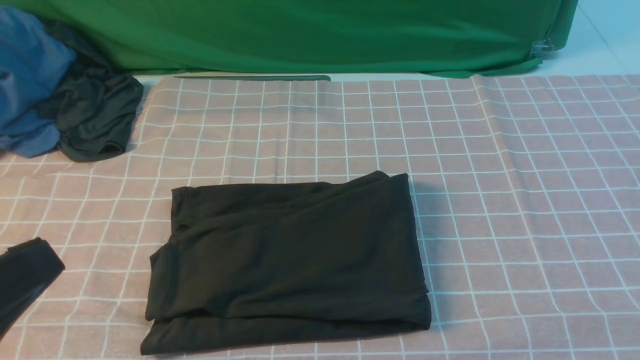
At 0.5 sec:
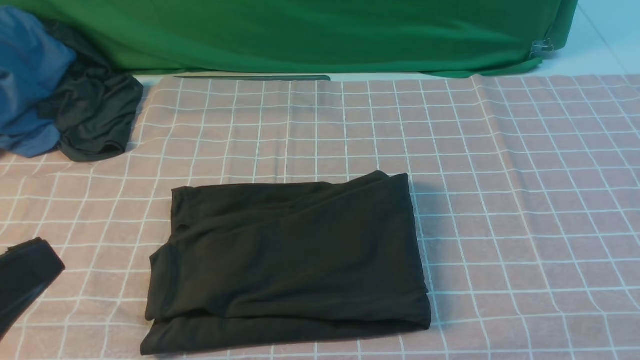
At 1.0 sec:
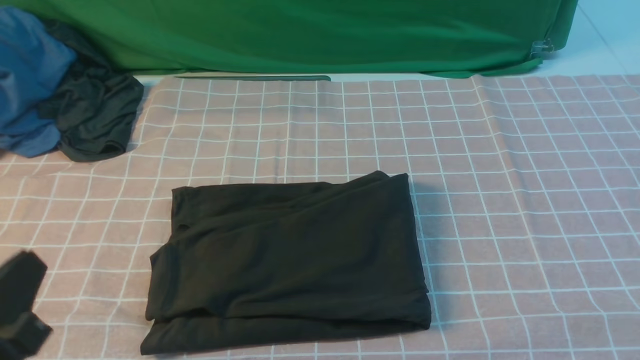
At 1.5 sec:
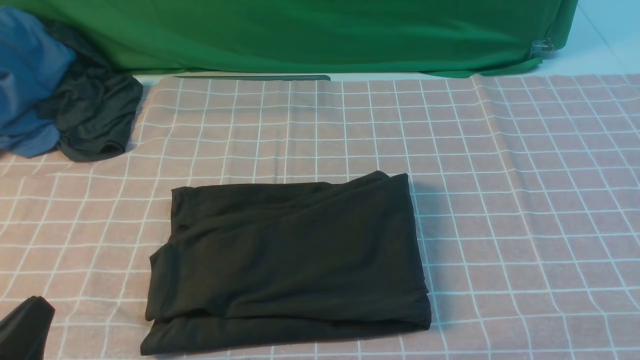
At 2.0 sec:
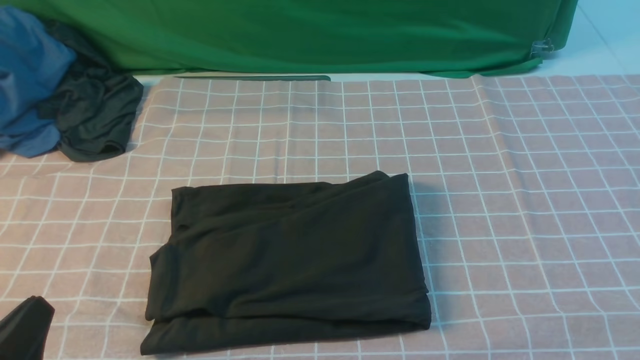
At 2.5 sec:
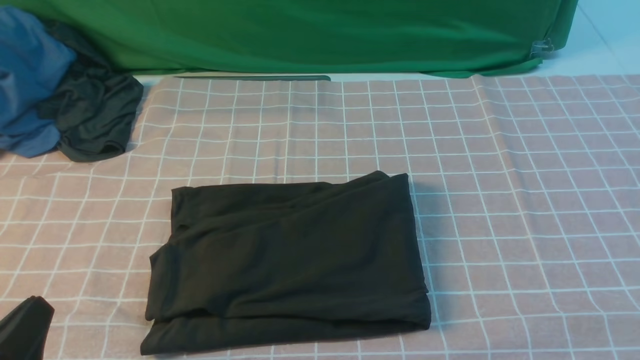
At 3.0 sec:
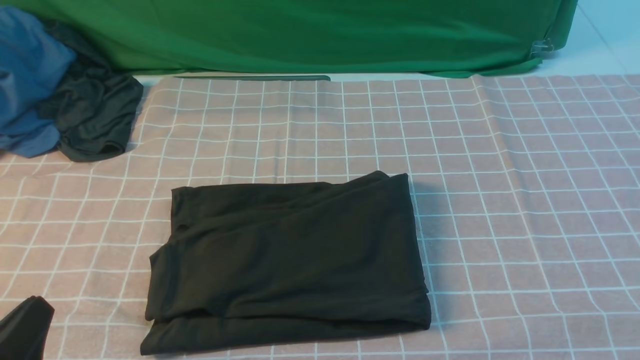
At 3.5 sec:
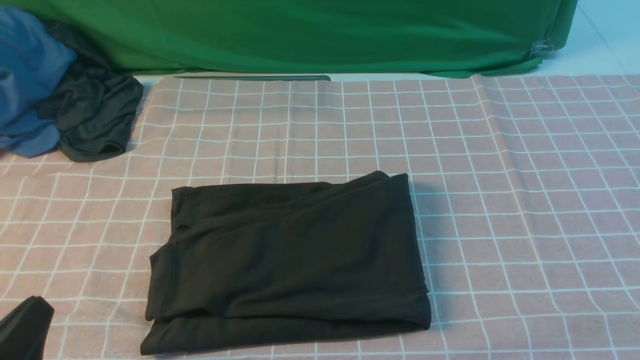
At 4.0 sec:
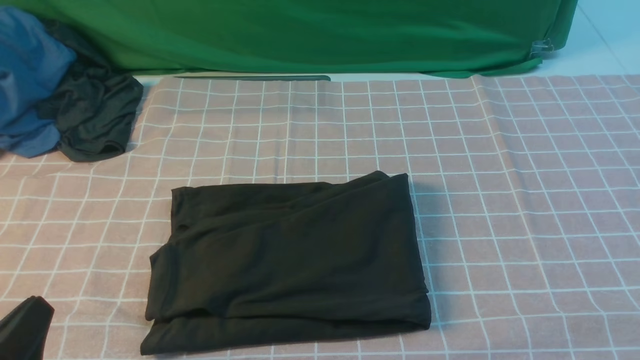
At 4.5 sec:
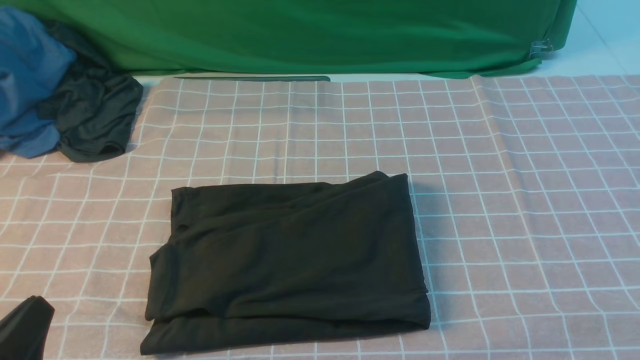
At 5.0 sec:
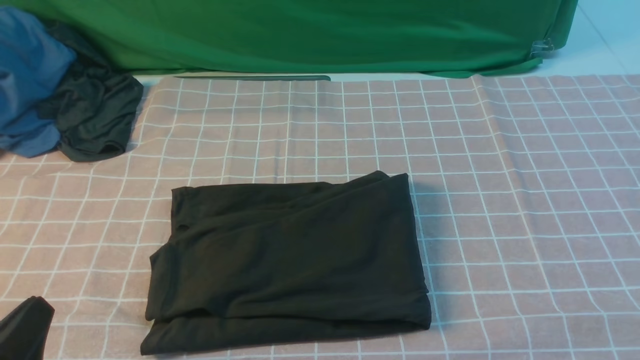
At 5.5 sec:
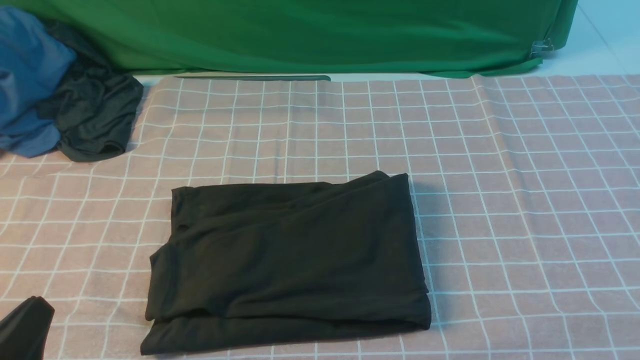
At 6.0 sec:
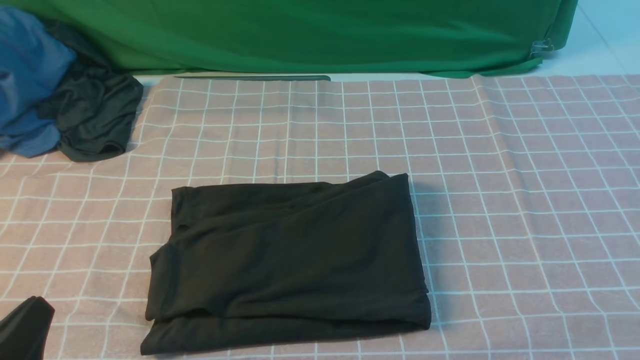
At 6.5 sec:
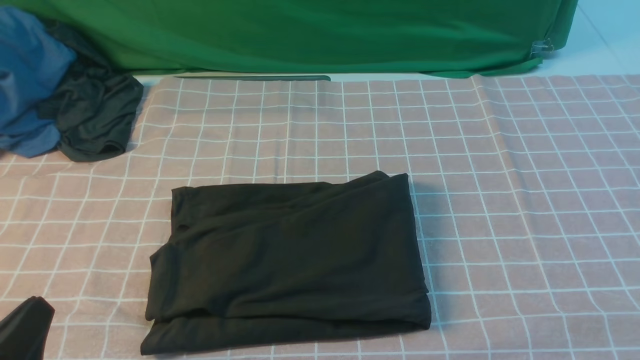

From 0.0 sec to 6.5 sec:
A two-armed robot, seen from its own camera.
From 0.0 sec to 2.0 sec: The left gripper heads downward, covering about 15 cm.
From 4.5 sec to 6.5 sec: Neither gripper changes place.

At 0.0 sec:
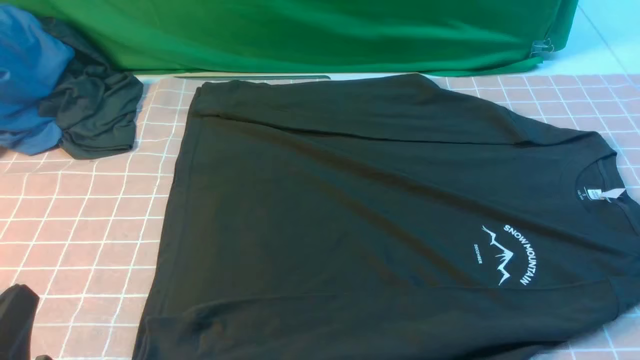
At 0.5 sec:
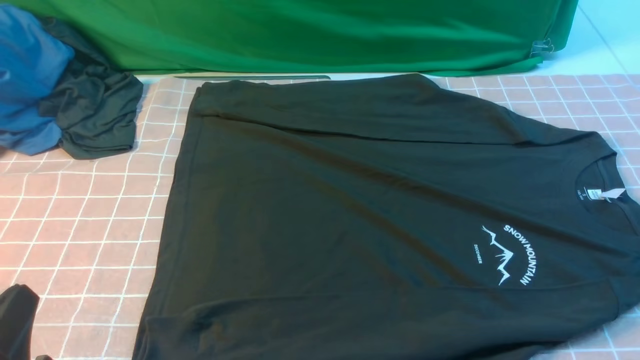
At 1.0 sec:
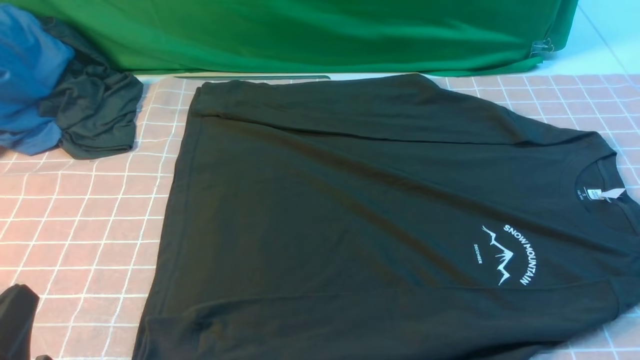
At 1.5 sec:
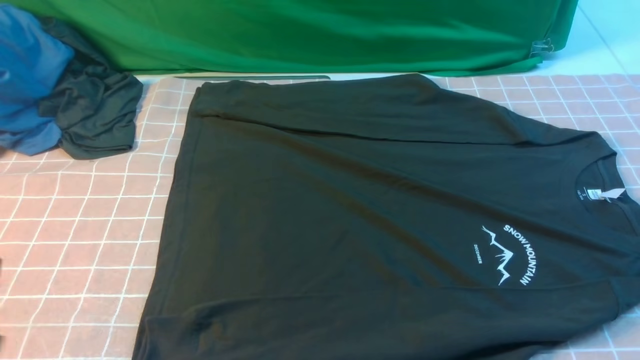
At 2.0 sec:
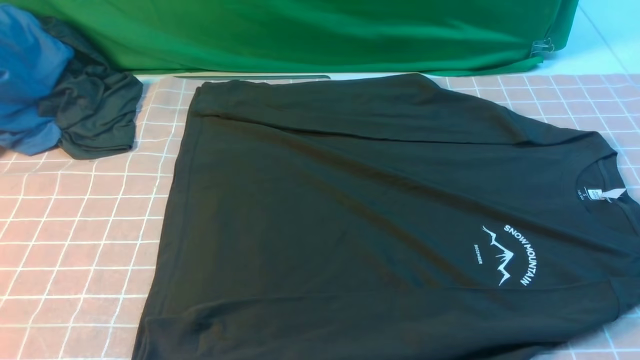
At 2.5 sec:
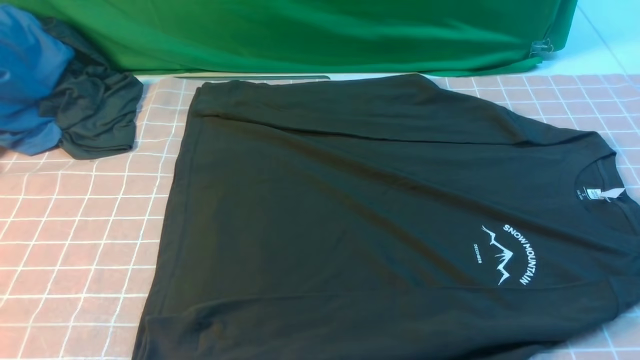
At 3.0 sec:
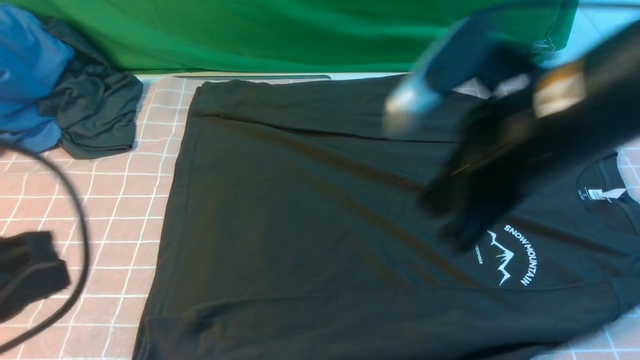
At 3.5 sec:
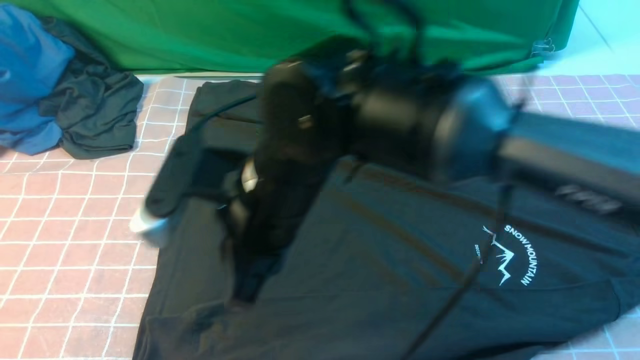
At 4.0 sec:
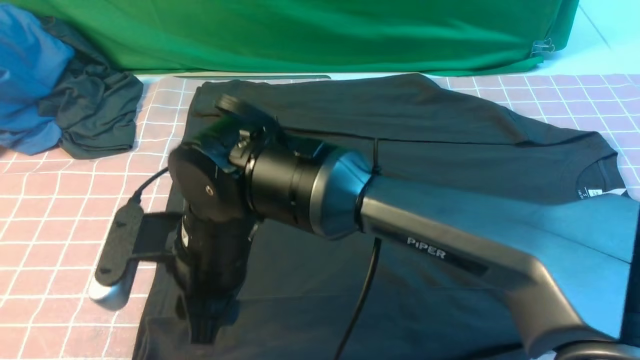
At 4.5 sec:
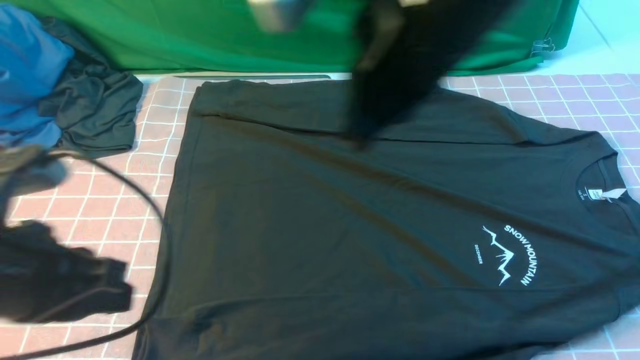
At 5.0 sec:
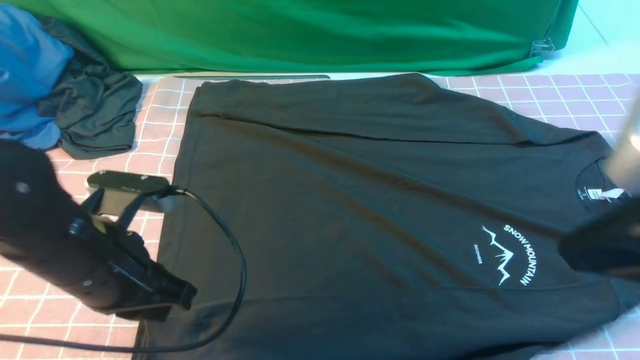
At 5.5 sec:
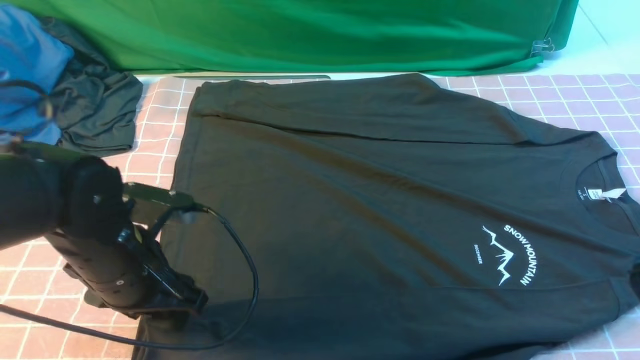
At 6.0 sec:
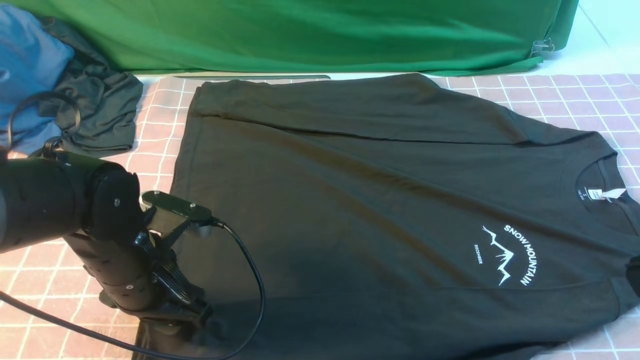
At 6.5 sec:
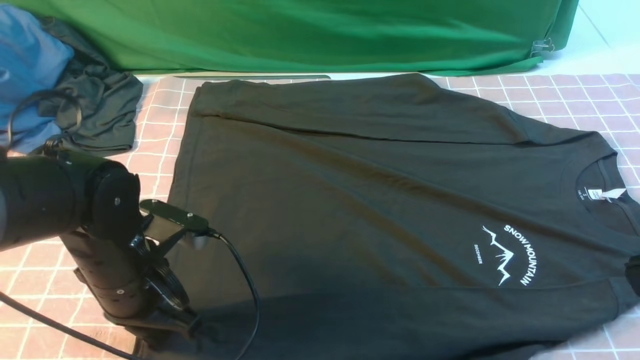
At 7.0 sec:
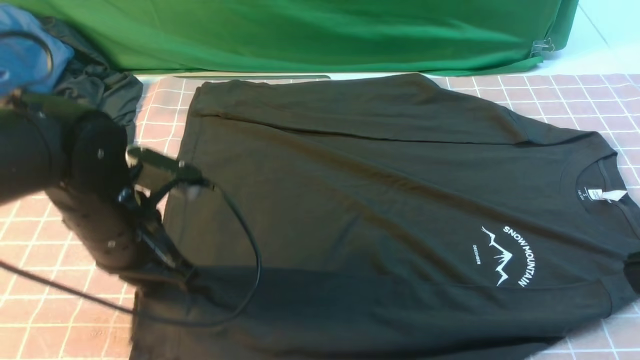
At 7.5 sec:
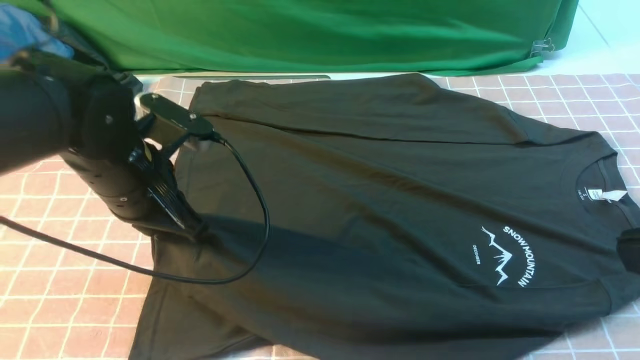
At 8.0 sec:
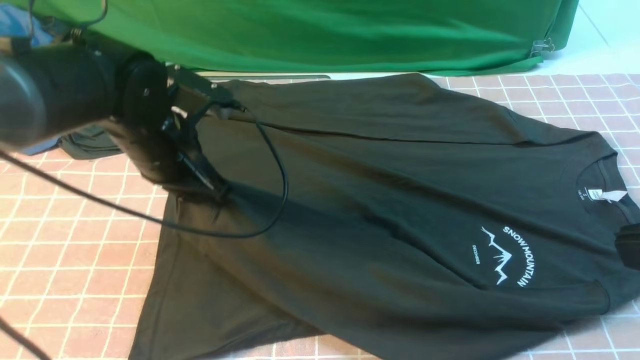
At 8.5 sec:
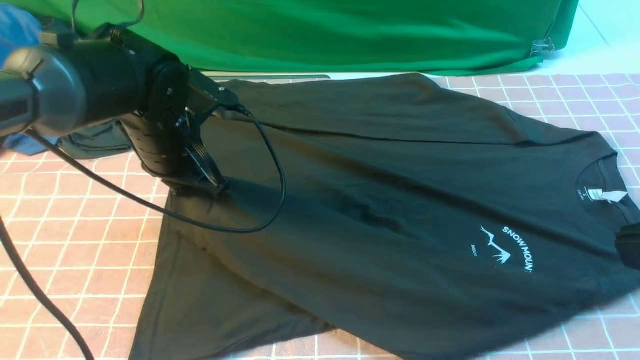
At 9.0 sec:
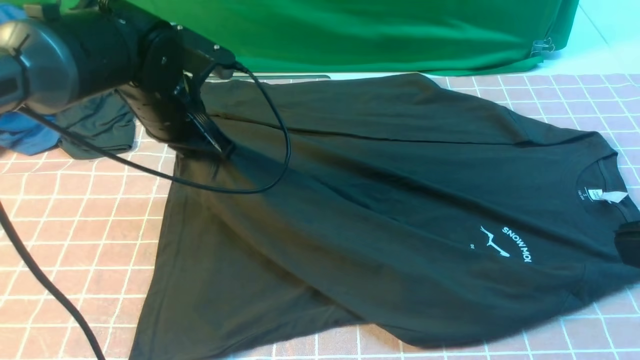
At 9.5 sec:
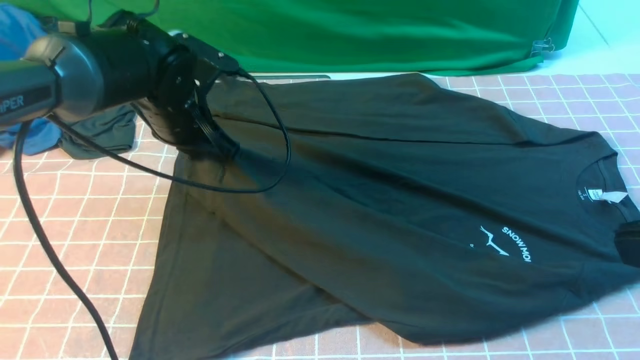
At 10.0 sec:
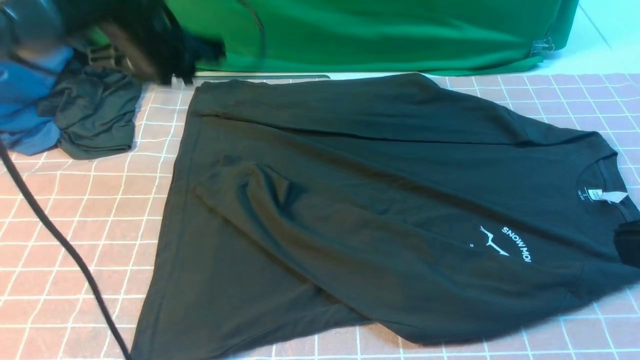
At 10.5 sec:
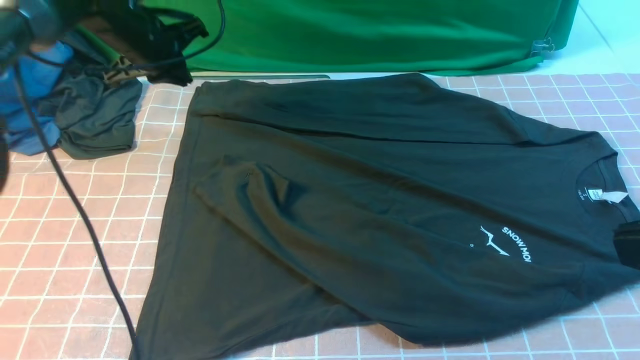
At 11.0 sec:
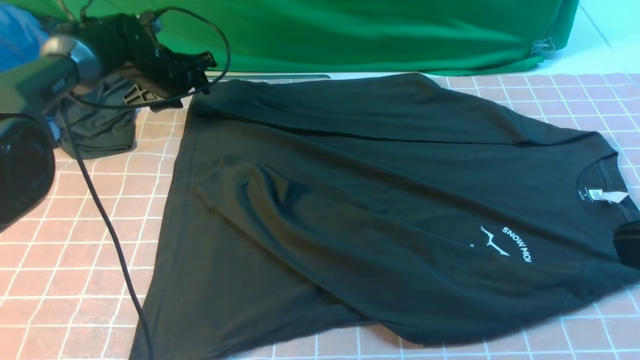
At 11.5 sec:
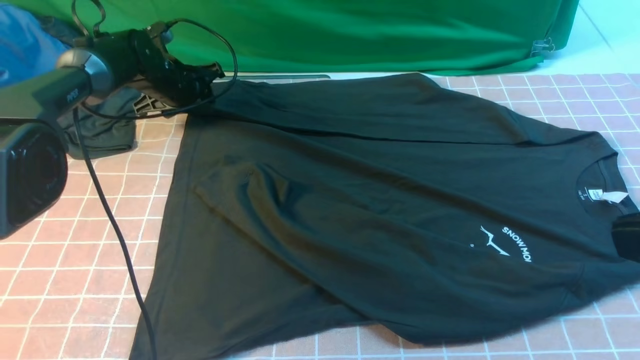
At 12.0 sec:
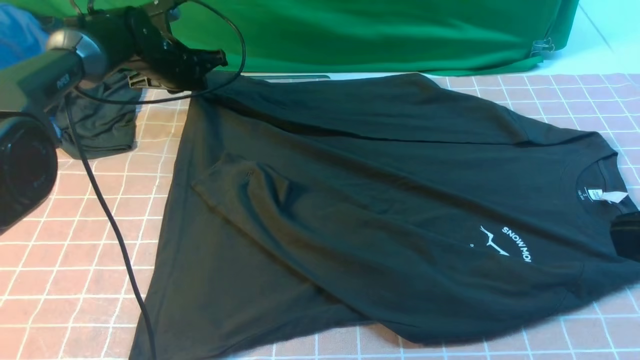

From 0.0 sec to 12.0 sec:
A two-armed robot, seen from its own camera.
Step, from 0.0 sec to 6.0 sec: use the left arm to clamp the cuff closest to it.
Step, from 6.5 sec to 9.5 sec: use the left arm to drag and place the cuff at the centered position on the left edge of the fabric.
From 0.0 sec to 2.0 sec: The left gripper heads upward, covering approximately 5 cm.
From 2.0 sec to 4.0 sec: The right gripper is displaced to the left and forward by roughly 50 cm, while the left gripper shifts roughly 10 cm upward.
From 4.0 sec to 6.0 sec: The right gripper heads to the right, backward and upward, covering about 40 cm, and closes up, while the left gripper is displaced forward and downward by some 30 cm, and opens up.
From 6.0 sec to 8.0 sec: The left gripper shifts approximately 10 cm forward and upward, and closes up.
From 8.0 sec to 10.0 sec: The left gripper shifts approximately 10 cm forward and upward.
From 10.0 sec to 12.0 sec: The left gripper heads downward and forward, covering approximately 15 cm, and opens, then closes again.

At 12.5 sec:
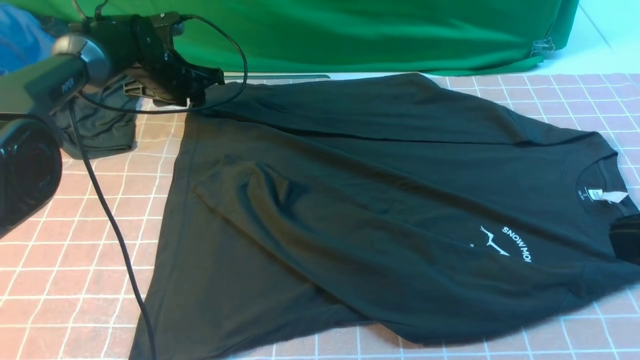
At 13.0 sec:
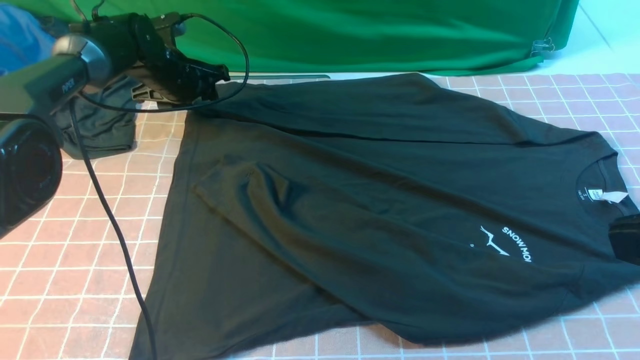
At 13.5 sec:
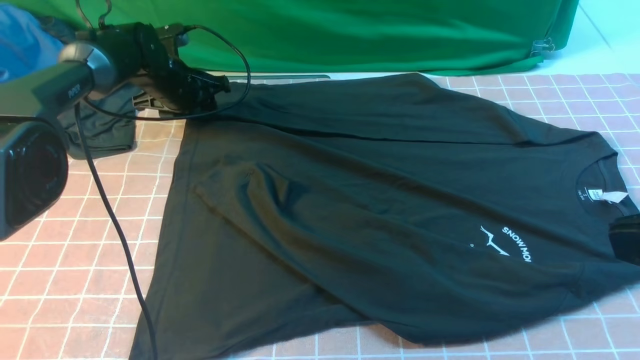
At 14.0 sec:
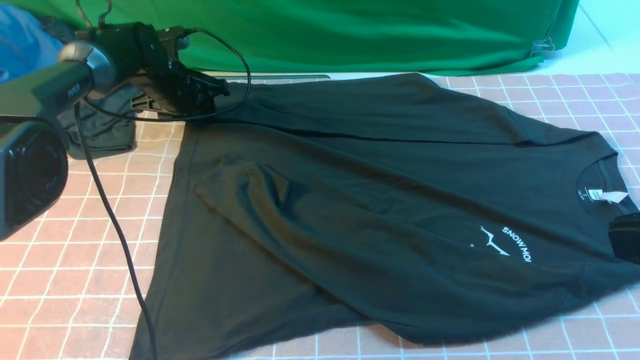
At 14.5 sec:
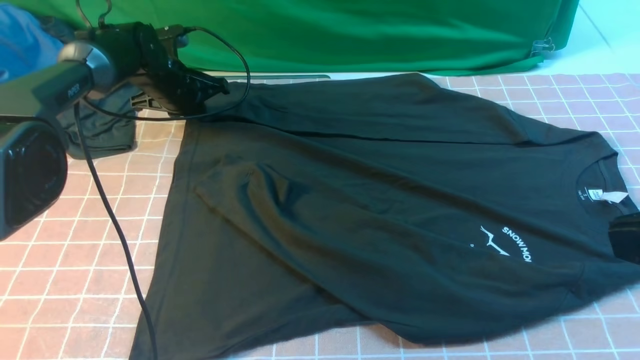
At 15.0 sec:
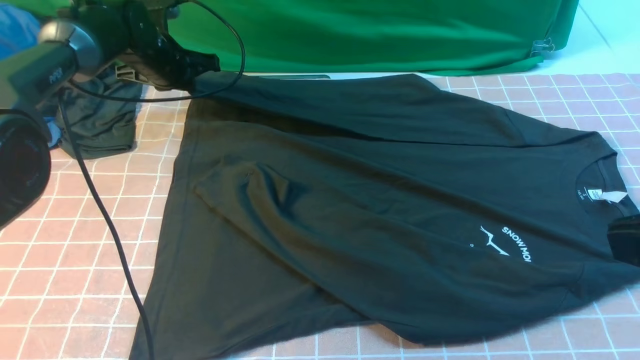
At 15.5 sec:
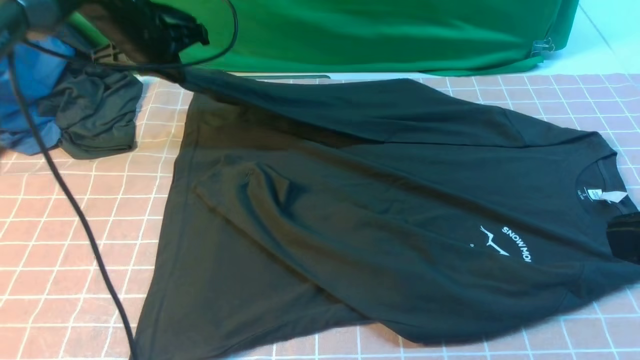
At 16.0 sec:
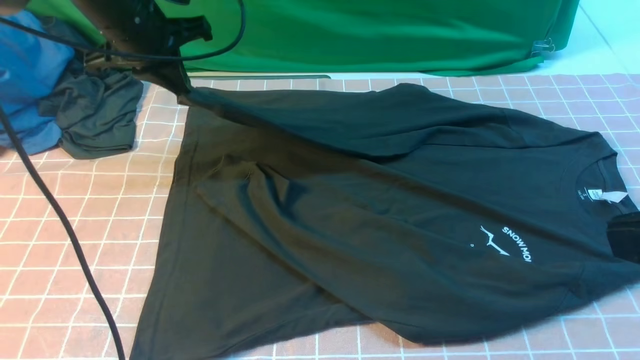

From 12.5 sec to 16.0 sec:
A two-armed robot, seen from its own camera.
Step, from 12.5 sec to 14.5 sec: use the left arm to clamp the cuff farthest from it.
From 12.5 sec to 14.5 sec: The left gripper closes its fingers.
From 14.5 sec to 16.0 sec: The left gripper shifts about 15 cm upward and backward.
